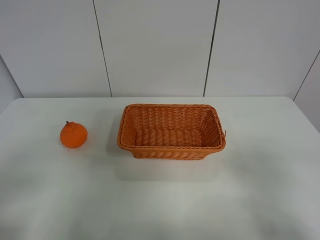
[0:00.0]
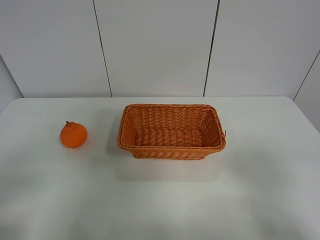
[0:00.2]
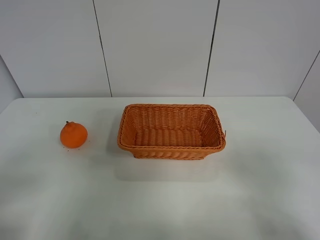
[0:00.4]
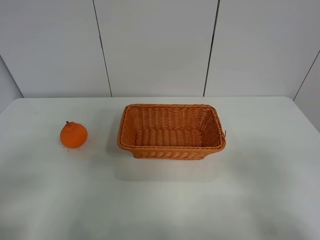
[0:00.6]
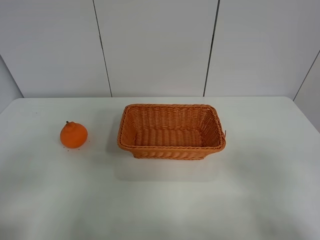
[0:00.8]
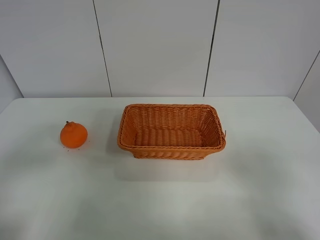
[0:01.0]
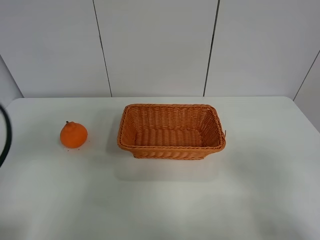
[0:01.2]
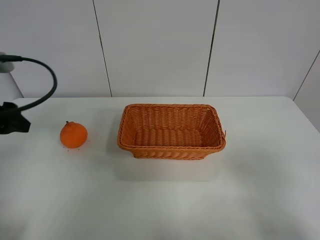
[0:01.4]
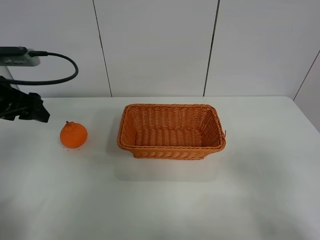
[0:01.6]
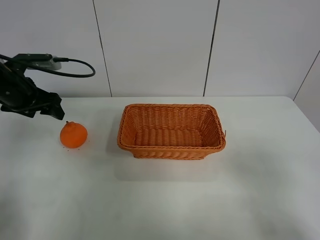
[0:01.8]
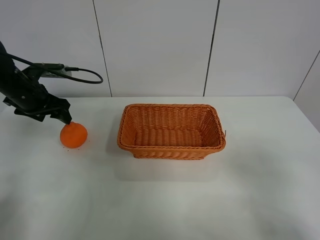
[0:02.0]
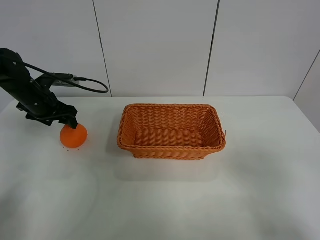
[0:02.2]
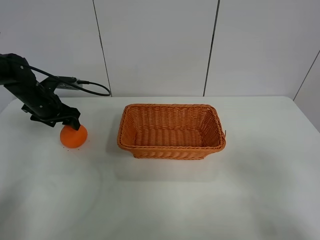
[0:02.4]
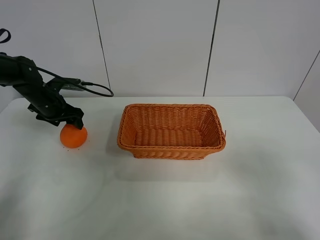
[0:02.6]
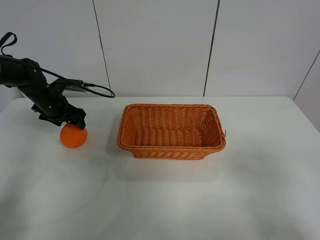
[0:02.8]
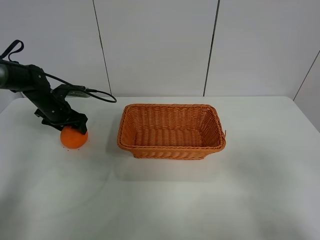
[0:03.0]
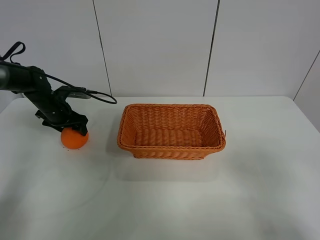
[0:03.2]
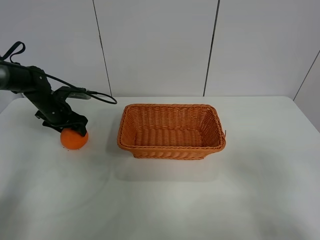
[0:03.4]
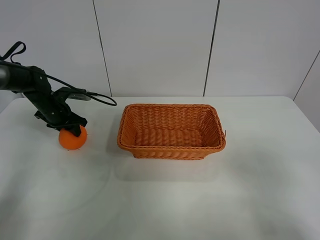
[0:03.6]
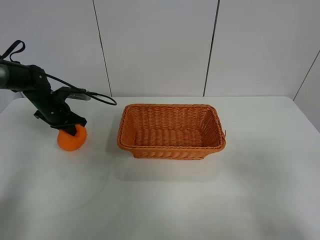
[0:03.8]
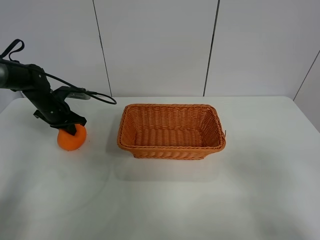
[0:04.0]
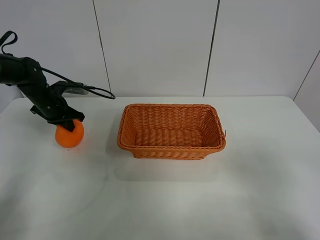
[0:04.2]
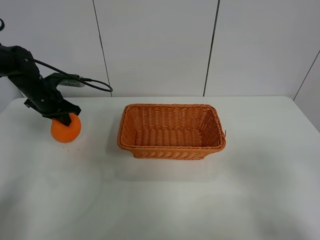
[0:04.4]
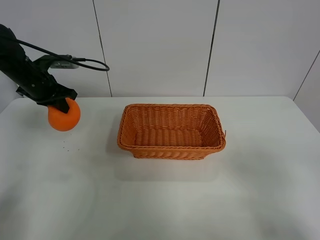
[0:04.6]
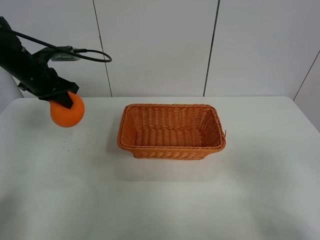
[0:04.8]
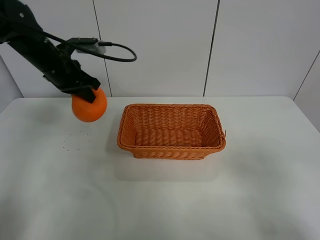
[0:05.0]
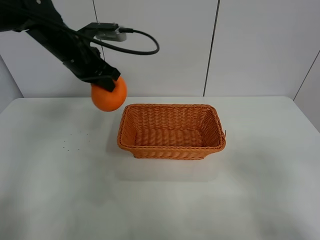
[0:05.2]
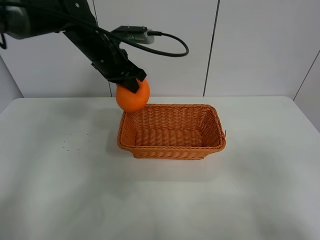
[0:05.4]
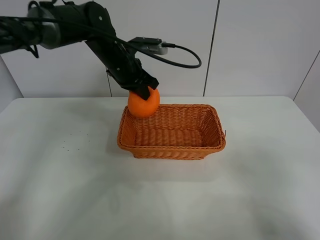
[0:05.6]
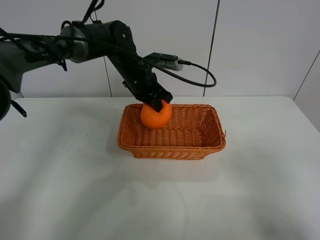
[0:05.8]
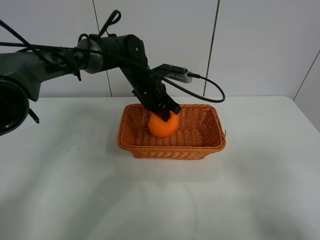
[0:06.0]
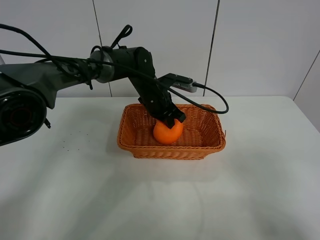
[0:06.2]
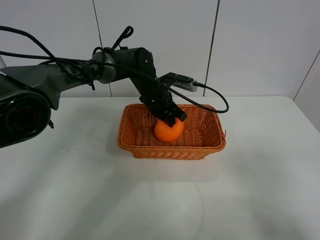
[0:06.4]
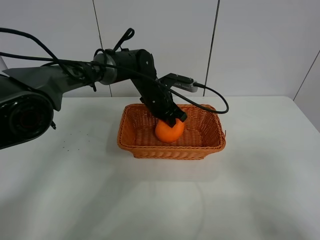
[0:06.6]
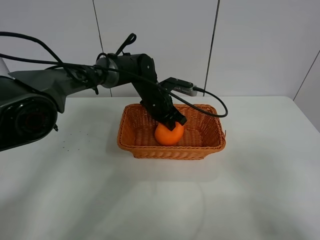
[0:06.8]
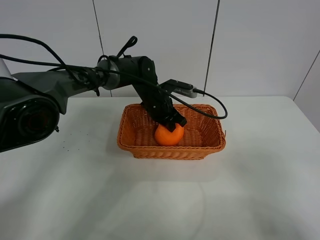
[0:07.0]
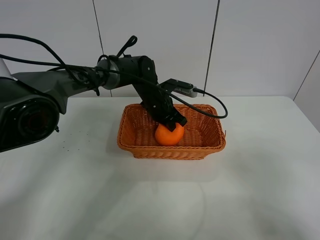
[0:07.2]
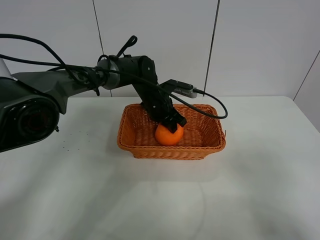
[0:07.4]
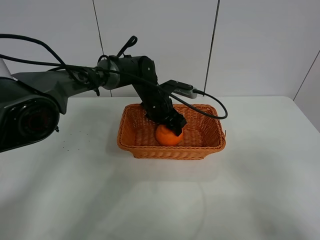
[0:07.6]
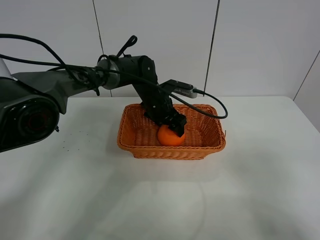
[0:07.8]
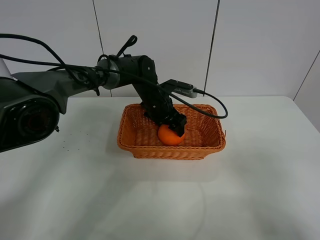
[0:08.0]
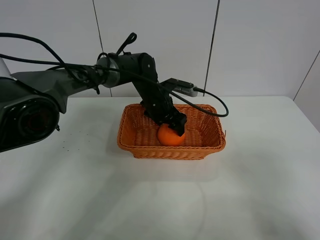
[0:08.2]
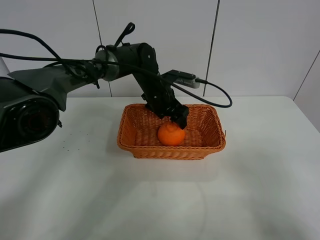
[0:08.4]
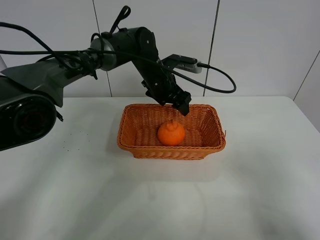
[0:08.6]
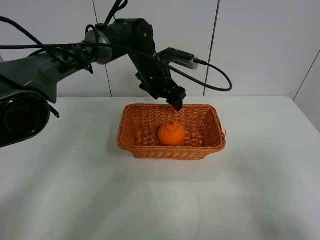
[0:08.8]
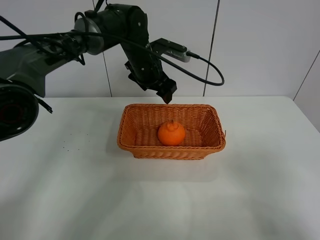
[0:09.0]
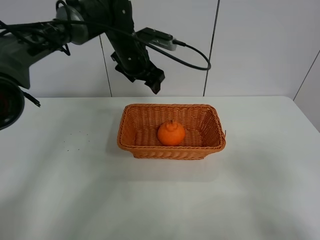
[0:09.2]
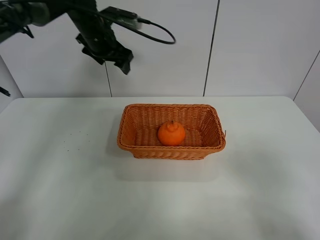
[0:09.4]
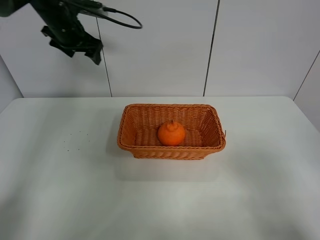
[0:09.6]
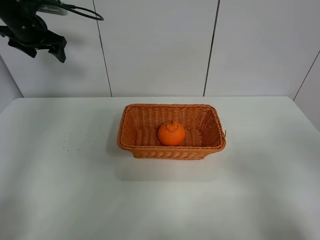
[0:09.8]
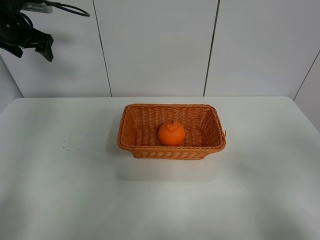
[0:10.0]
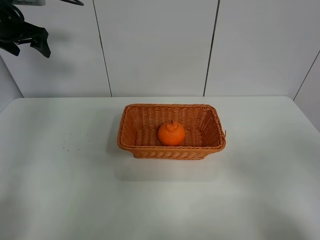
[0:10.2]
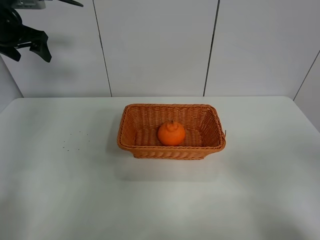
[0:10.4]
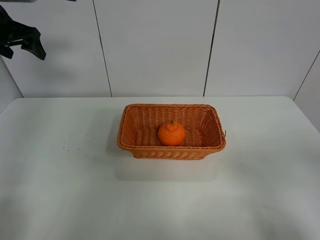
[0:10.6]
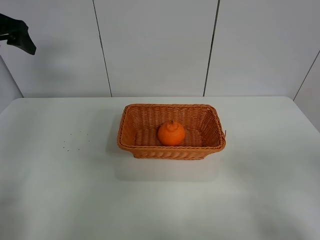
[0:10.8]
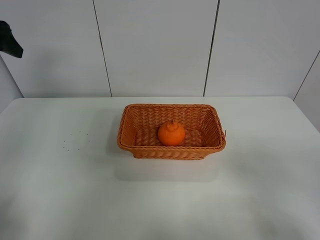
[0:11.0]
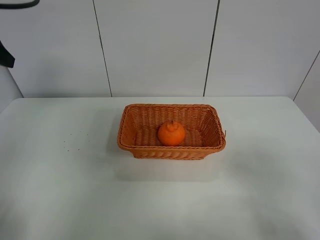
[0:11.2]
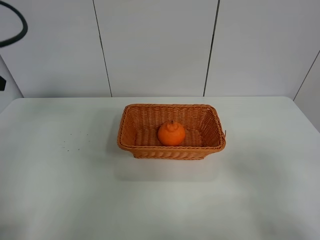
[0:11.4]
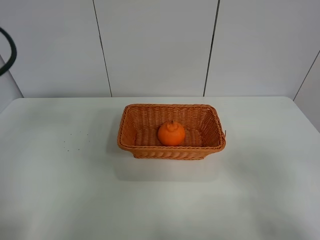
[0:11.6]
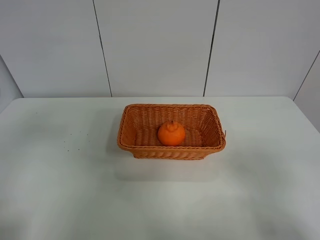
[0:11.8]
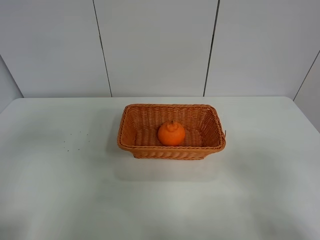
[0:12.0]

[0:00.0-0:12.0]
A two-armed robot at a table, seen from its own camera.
Task of the whole recording: left gripper grabs oranges and puts them in the basket.
Step, 0:00.0 to 0:04.0: Grasp the orange with left gripper.
Step, 0:04.2 to 0:09.4: Place the orange in the basket with left gripper.
0:00.0 to 0:01.6: The left gripper goes approximately 30 cm forward.
0:01.6 to 0:03.0: The left gripper goes approximately 20 cm downward and forward.
0:03.0 to 0:04.4: The left gripper moves upward, roughly 5 cm, and closes up.
0:04.4 to 0:06.0: The left gripper moves to the right, roughly 25 cm.
0:06.0 to 0:07.6: The left gripper travels downward by roughly 5 cm, and opens up.
0:07.6 to 0:09.0: The left gripper is displaced upward by some 10 cm.
0:09.0 to 0:10.4: The left gripper moves to the left, about 30 cm.
0:10.4 to 0:12.0: The left gripper is displaced backward by roughly 35 cm.
